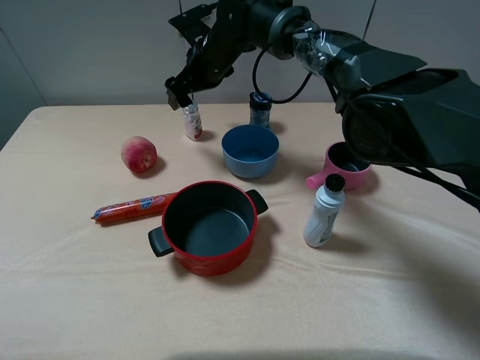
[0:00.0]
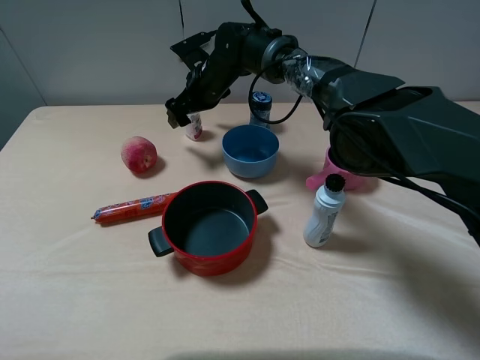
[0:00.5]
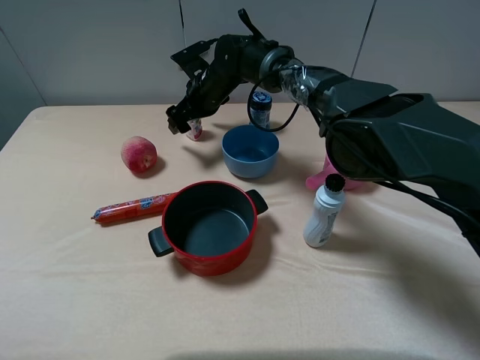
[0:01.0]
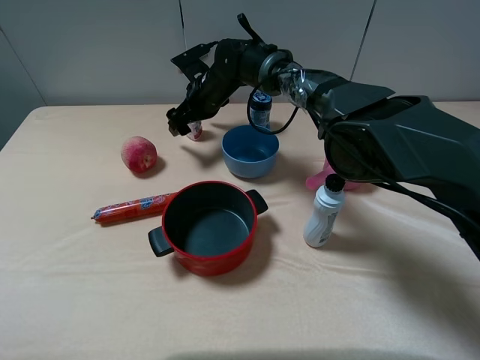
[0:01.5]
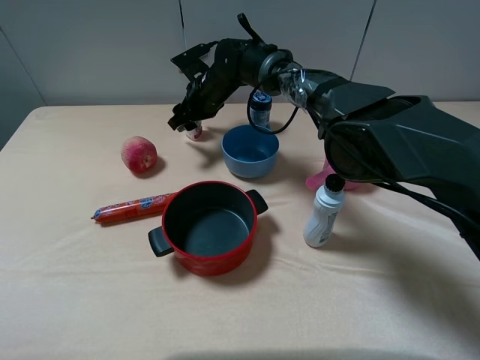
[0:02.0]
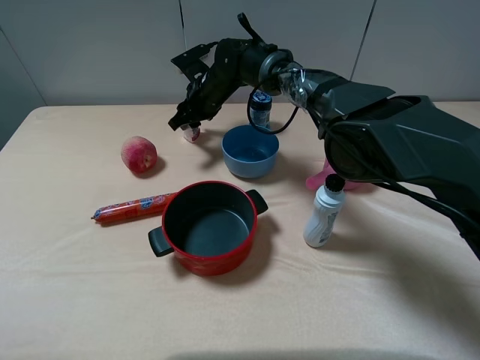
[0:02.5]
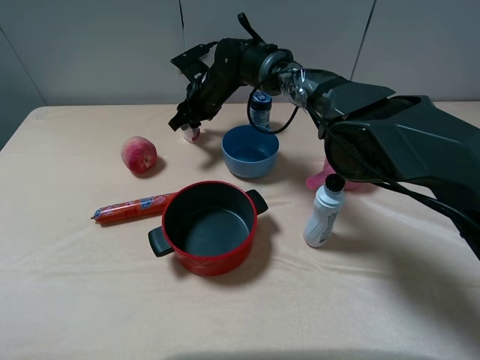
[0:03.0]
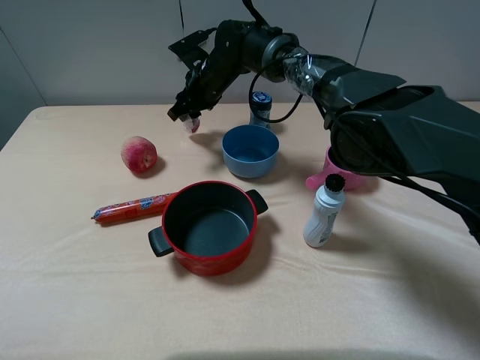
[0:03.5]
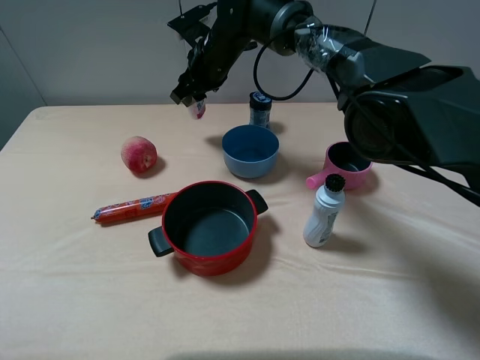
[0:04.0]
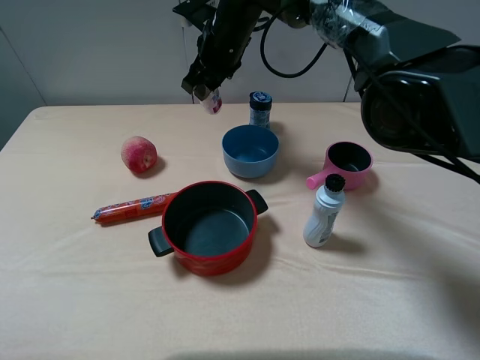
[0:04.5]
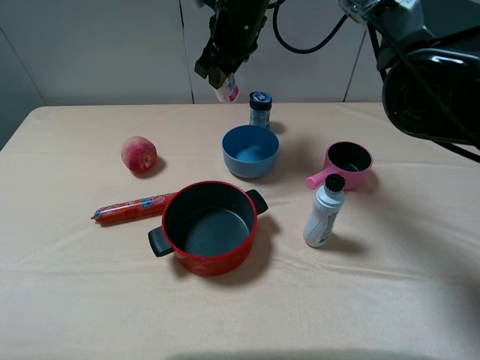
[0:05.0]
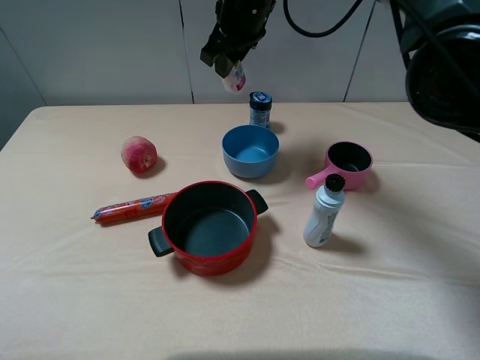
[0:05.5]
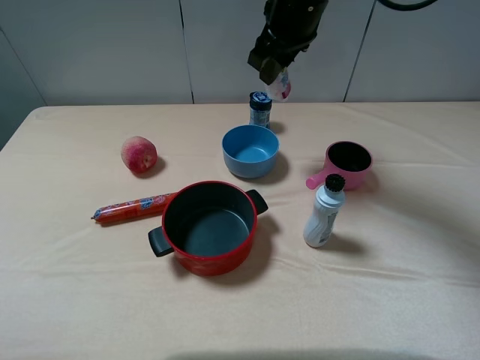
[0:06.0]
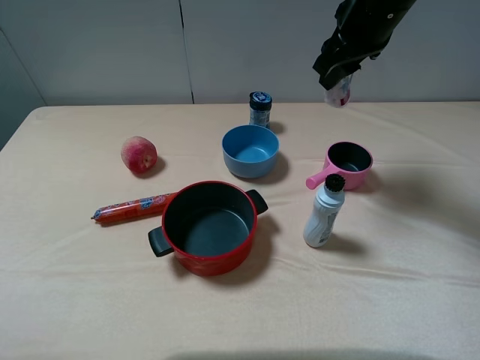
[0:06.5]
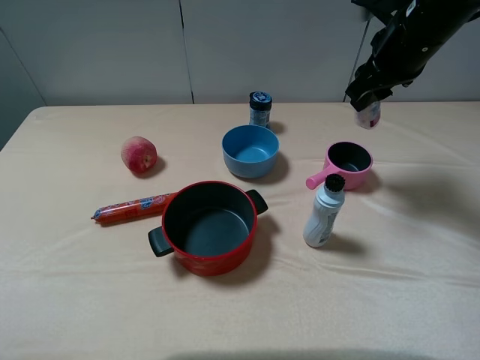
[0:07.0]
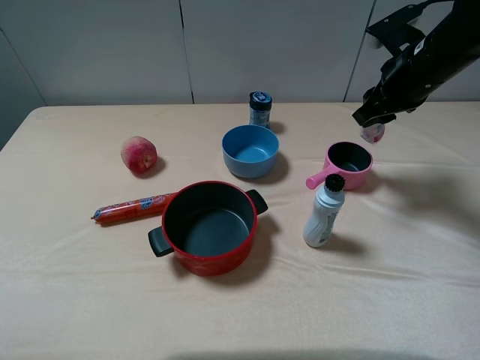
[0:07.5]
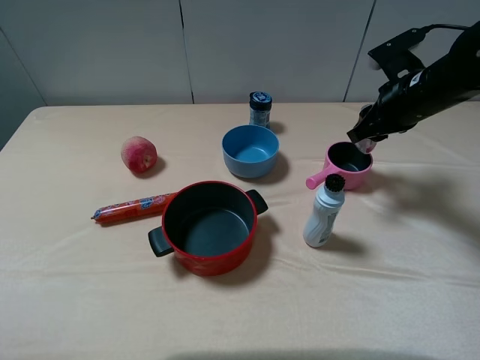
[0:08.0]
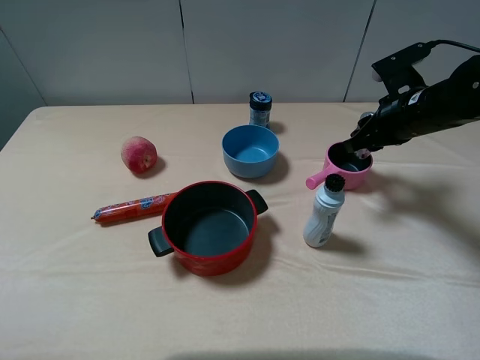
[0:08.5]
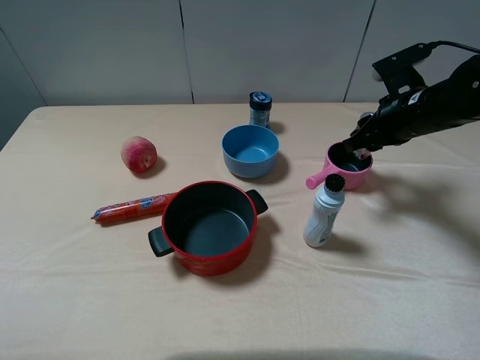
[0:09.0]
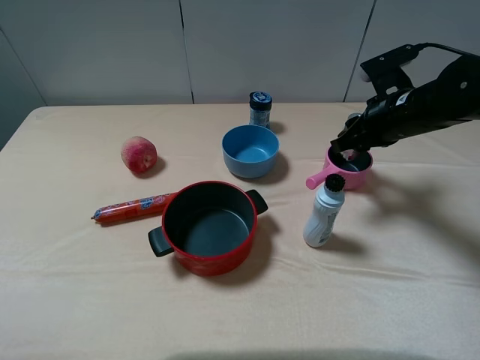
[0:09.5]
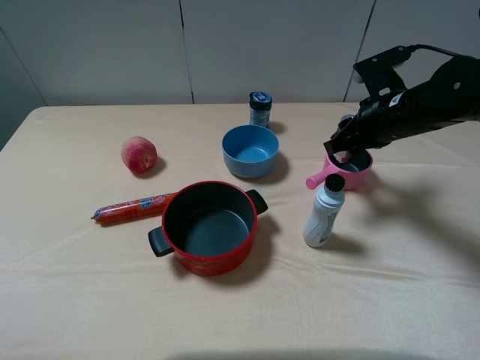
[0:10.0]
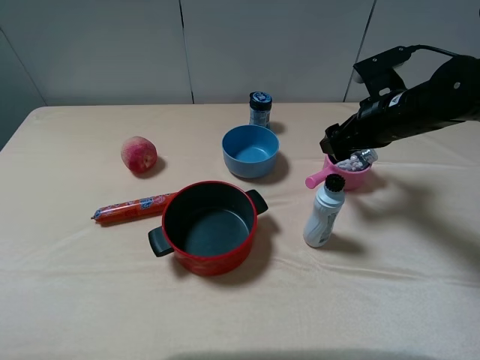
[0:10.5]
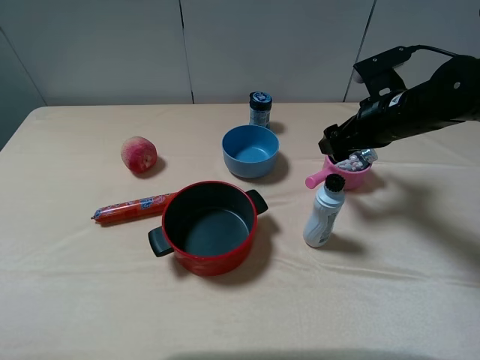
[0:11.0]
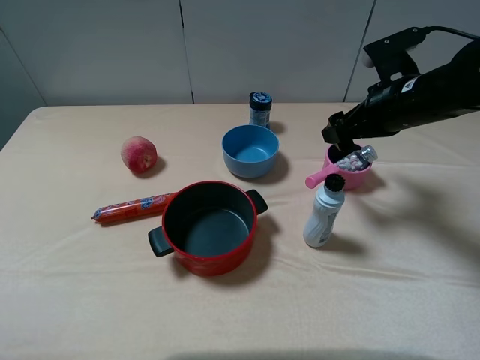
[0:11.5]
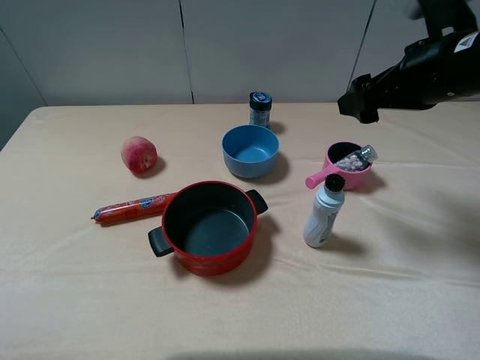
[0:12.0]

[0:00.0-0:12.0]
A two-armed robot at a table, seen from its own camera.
Task of the whole recording: pick up an item with a gripper and place it in a random container on the table.
Step, 0:00.0 to 0:02.0: Grasp the mint candy with the right gripper.
Step, 0:02.5 to 0:10.5: Place the mint candy into the pink bowl with the right gripper.
0:00.0 to 0:02.0: The right gripper travels downward by approximately 5 cm, and closes its fingers.
0:02.0 to 0:04.0: The right gripper heads upward, covering some 5 cm.
0:04.0 to 0:06.0: The right gripper travels to the right, upward and backward by about 15 cm.
0:06.0 to 0:08.0: The right gripper moves to the right and downward, roughly 20 cm.
0:08.0 to 0:10.0: The grippers make only small movements.
0:10.0 to 0:12.0: The right gripper goes some 10 cm upward, and opens its fingers.

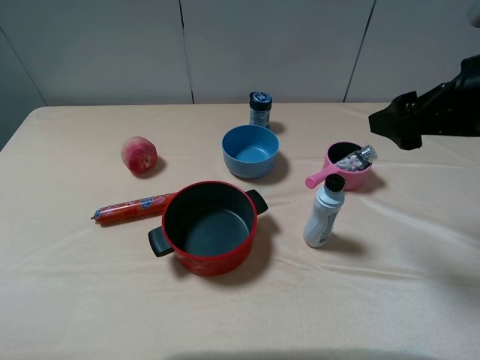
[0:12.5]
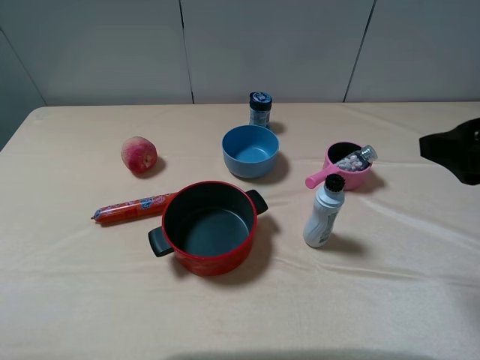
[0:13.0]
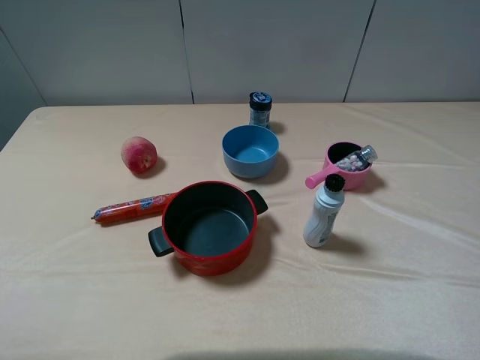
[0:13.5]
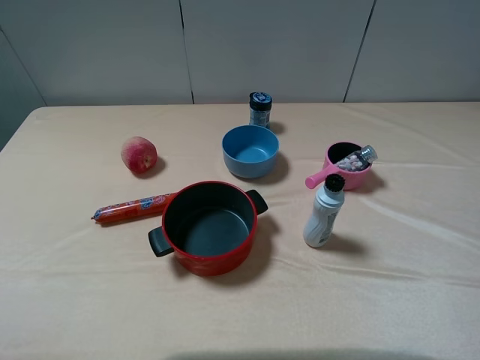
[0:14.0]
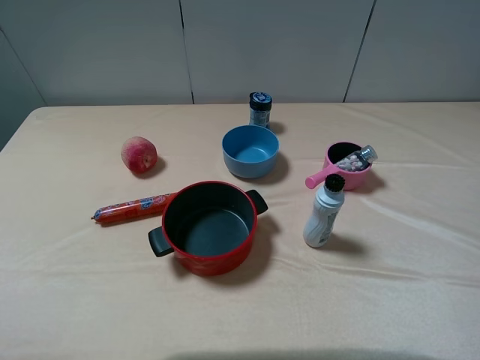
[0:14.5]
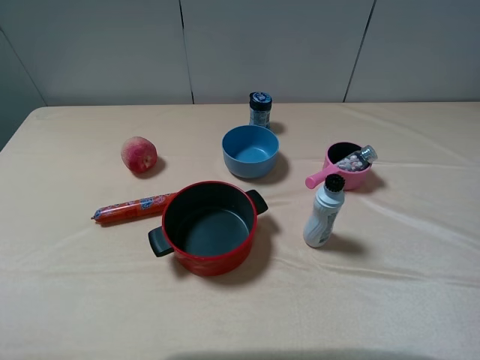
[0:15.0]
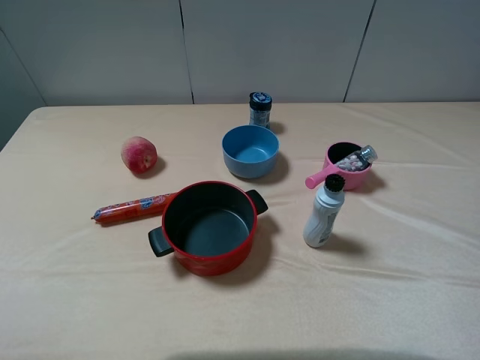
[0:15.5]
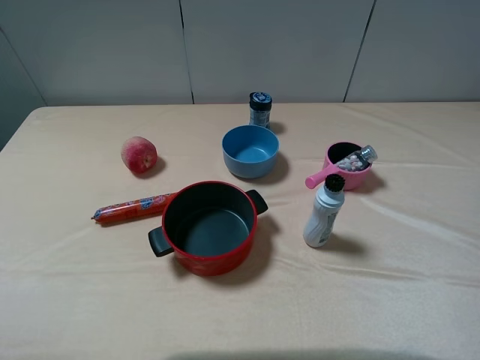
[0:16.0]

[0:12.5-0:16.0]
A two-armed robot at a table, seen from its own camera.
Task of the whole recording: pick up an item with a gripper and place it in a random container on the table.
0:12.5 to 0:14.5: The right gripper moves backward, about 20 cm.
0:14.5 to 0:16.0: Both grippers stay put.
